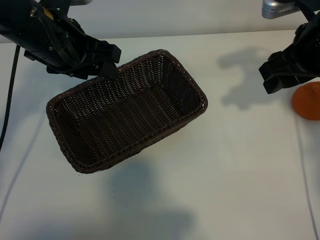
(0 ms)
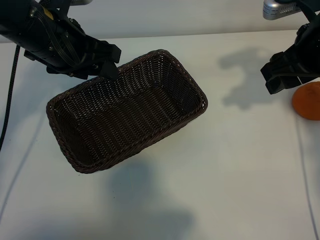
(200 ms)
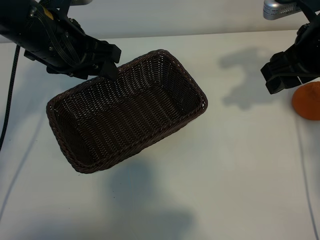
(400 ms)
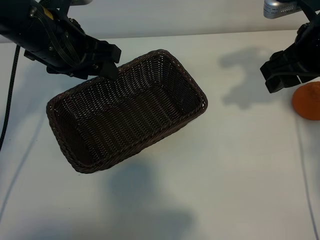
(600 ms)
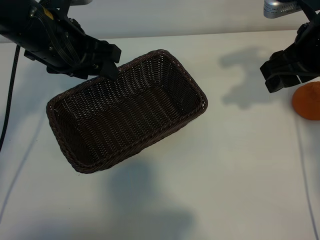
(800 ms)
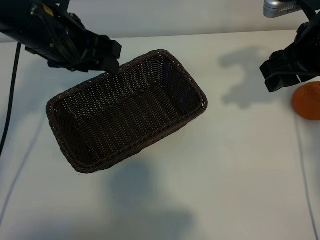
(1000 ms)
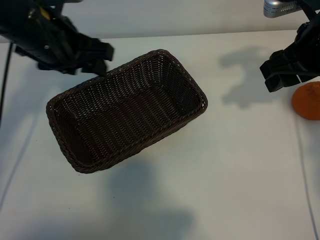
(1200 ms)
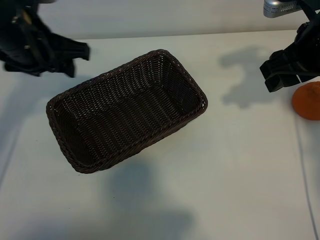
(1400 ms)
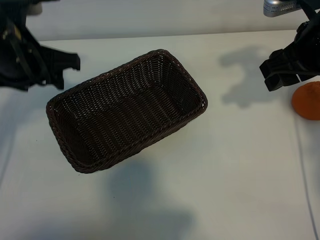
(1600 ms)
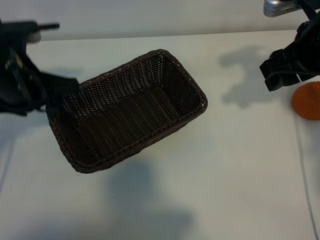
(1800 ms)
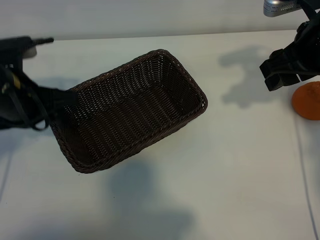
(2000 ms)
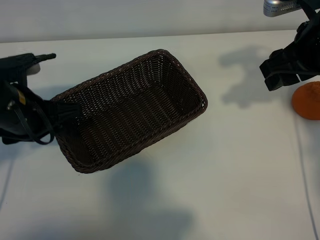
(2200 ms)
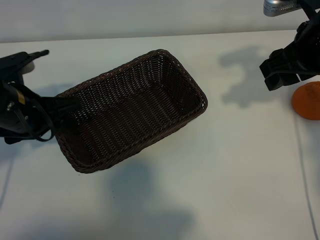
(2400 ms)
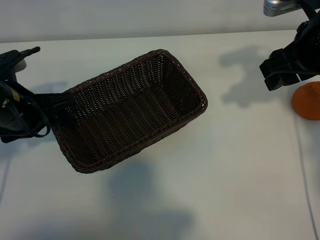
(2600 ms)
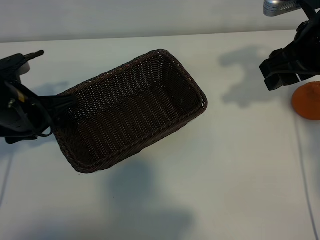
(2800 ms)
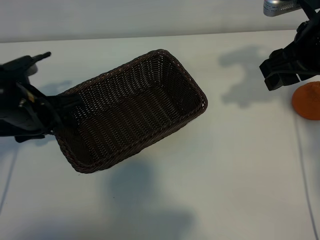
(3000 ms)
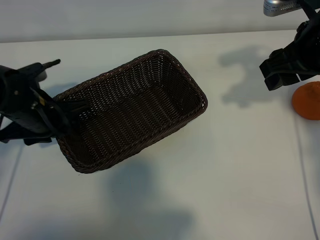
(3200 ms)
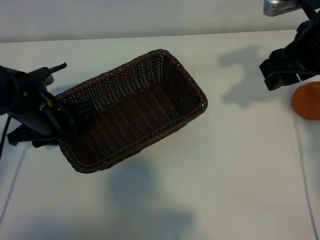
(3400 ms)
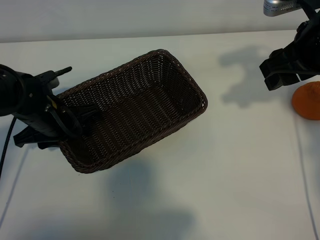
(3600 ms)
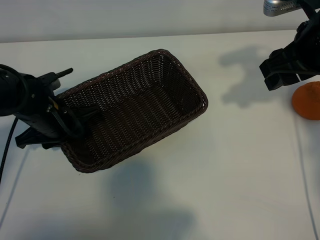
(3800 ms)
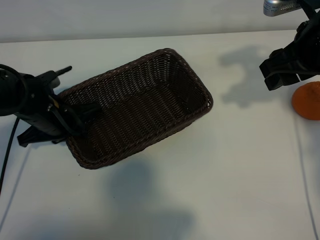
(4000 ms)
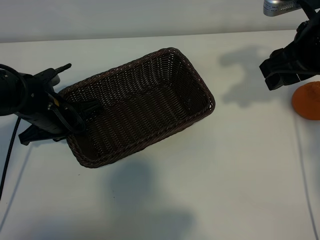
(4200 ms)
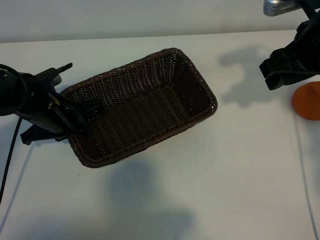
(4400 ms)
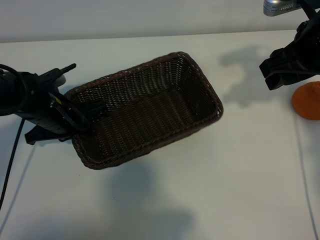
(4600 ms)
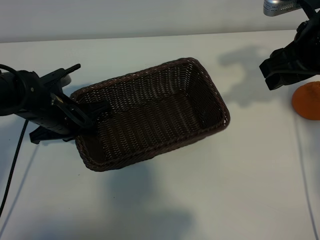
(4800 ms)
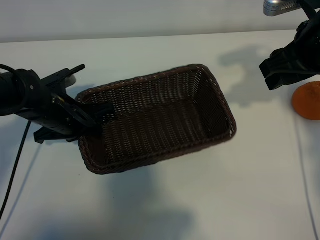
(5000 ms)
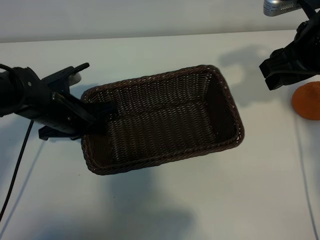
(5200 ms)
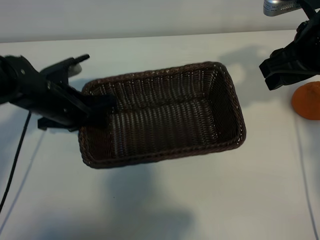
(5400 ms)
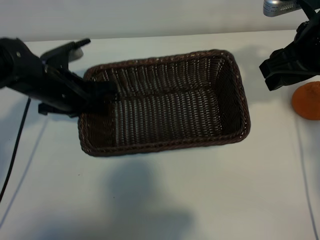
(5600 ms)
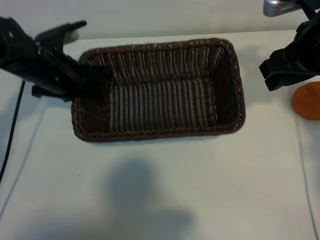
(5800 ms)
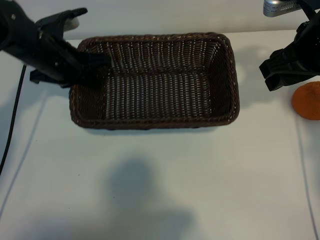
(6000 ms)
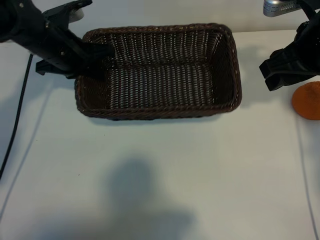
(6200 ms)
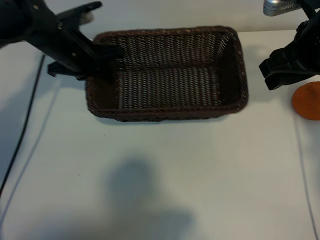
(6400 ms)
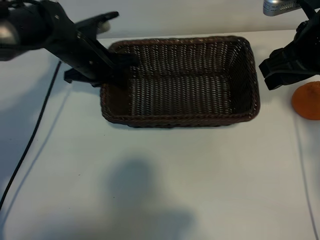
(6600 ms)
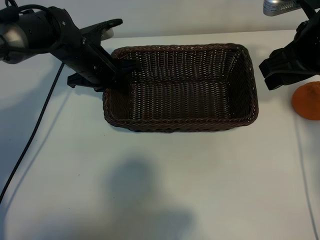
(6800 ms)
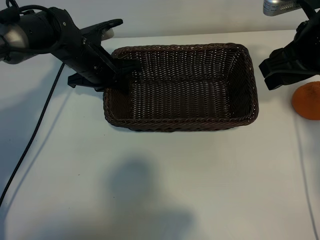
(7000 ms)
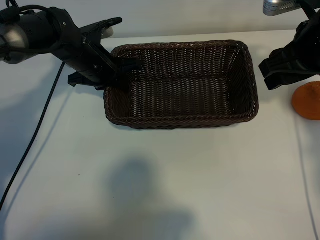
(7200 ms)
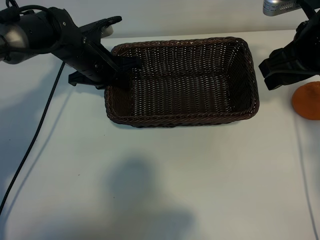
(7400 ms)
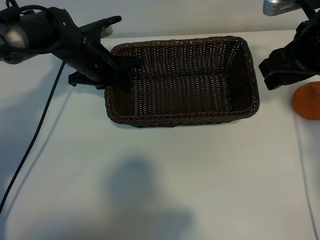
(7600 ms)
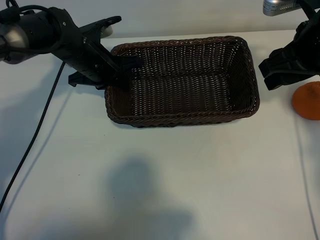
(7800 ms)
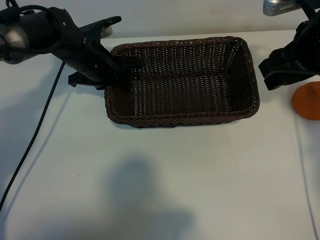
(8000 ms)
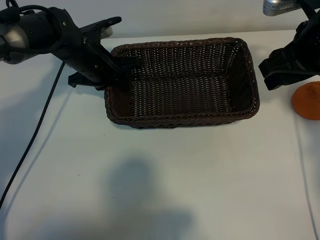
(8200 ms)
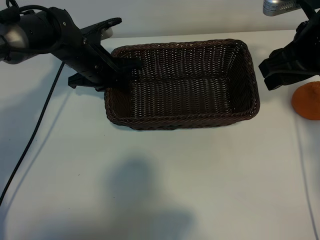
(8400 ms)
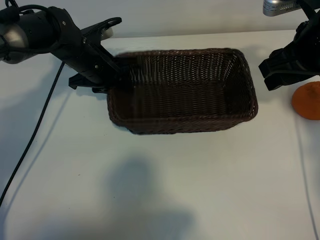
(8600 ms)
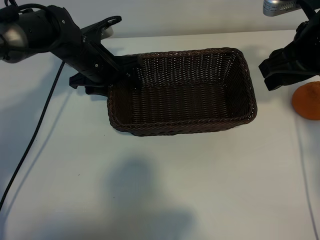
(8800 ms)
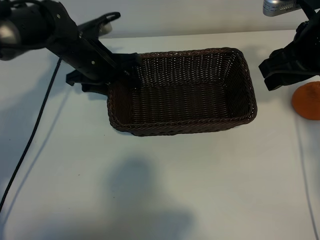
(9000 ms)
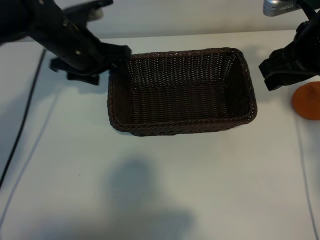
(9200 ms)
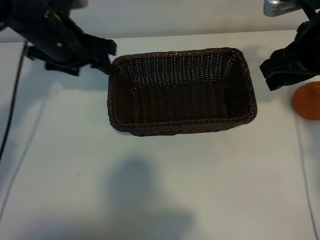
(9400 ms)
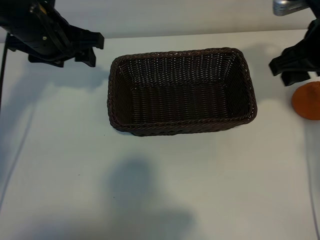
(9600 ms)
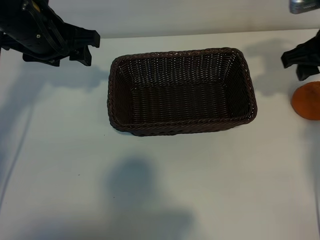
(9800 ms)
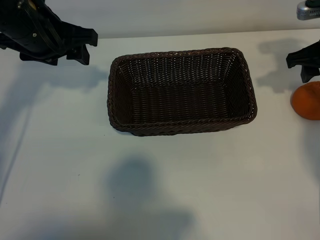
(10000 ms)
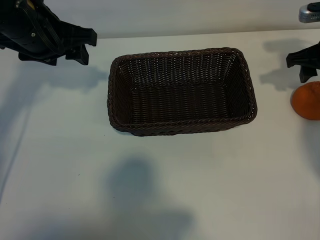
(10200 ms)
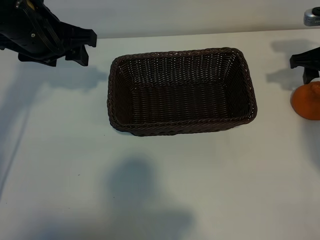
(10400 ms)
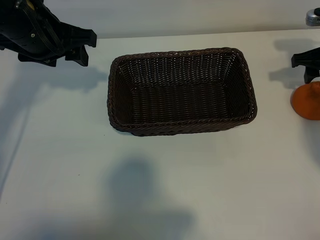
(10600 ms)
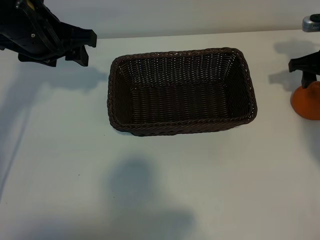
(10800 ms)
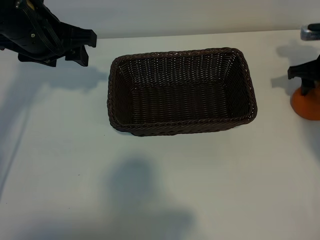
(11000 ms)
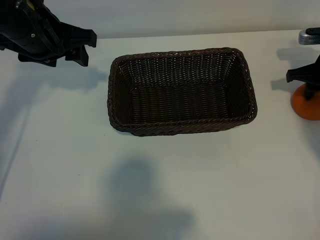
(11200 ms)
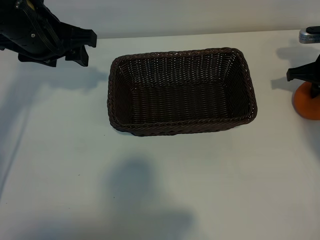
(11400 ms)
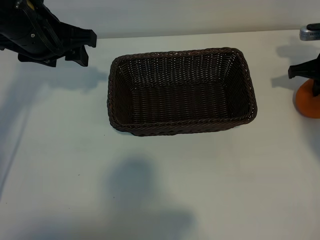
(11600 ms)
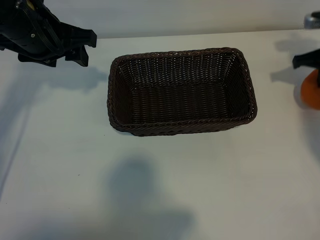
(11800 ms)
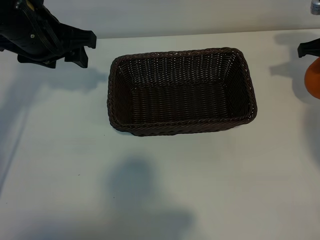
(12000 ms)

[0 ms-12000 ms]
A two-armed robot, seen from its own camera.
Task of the whole recording: pick up the orange and put it into the basket.
Step, 0 ms to 4000 ms: Grasp the basket with left gripper.
Step, 4200 ms to 8600 ms: Place the basket in the center of view with left gripper.
Step, 8800 ms to 11400 ms: Grasp the orange with right gripper.

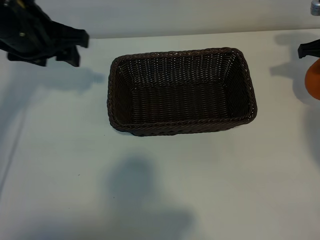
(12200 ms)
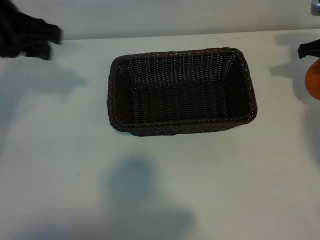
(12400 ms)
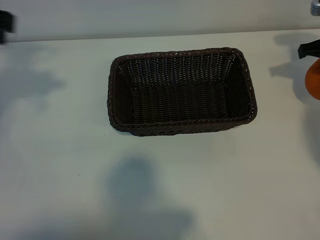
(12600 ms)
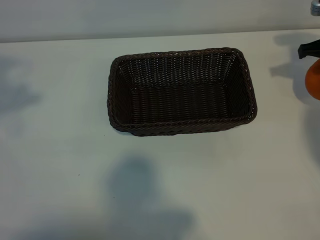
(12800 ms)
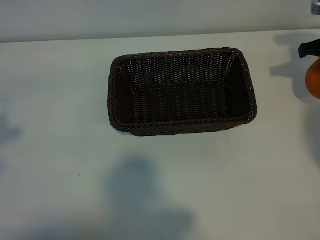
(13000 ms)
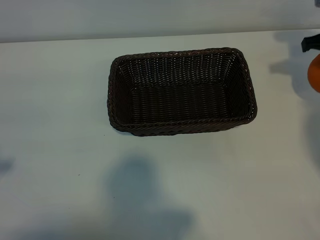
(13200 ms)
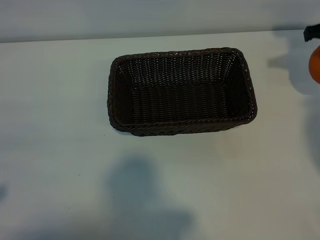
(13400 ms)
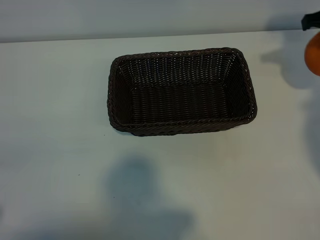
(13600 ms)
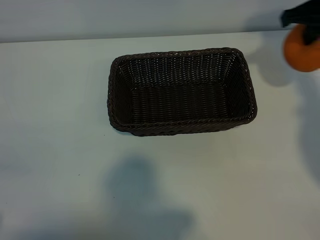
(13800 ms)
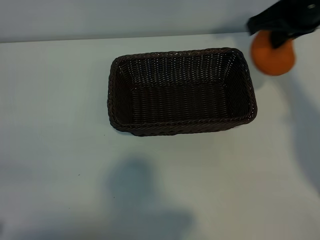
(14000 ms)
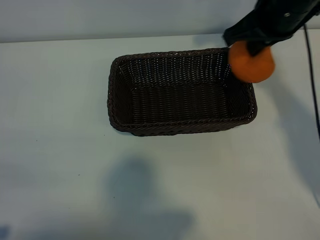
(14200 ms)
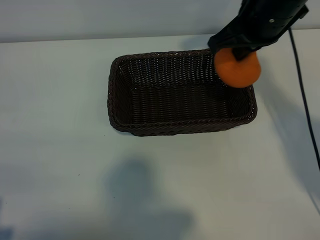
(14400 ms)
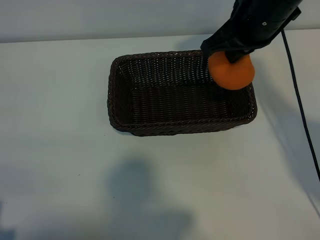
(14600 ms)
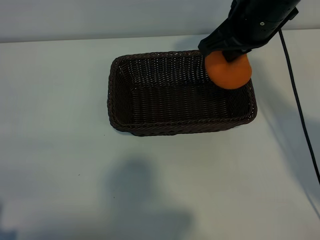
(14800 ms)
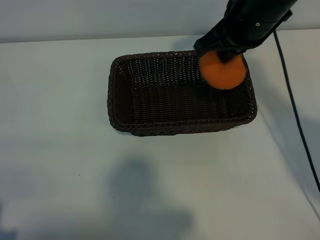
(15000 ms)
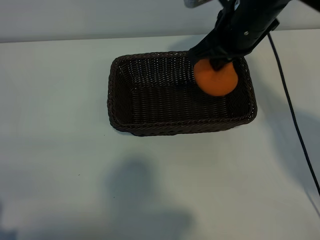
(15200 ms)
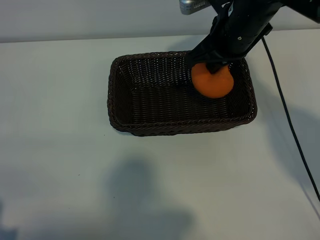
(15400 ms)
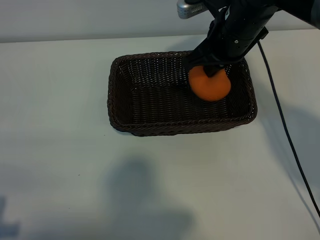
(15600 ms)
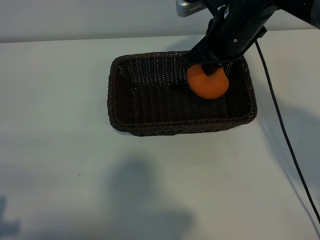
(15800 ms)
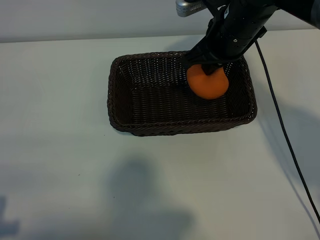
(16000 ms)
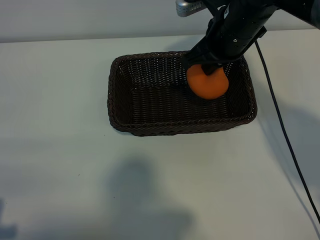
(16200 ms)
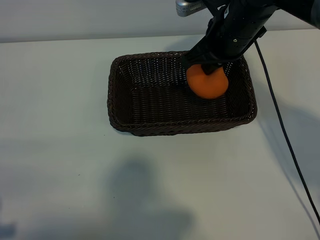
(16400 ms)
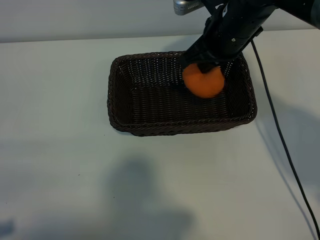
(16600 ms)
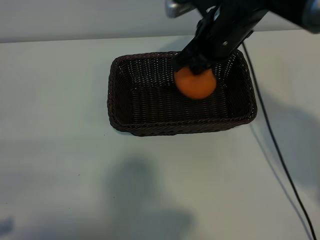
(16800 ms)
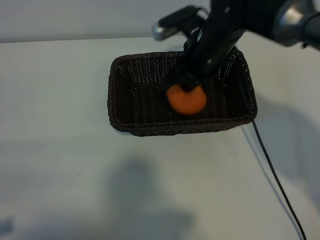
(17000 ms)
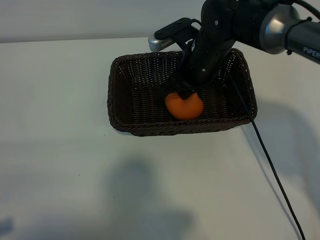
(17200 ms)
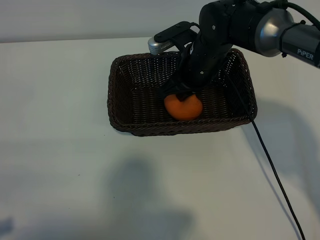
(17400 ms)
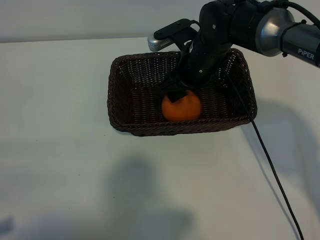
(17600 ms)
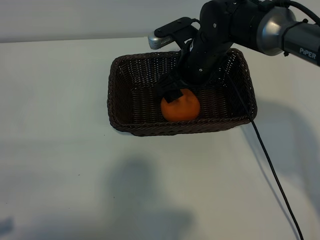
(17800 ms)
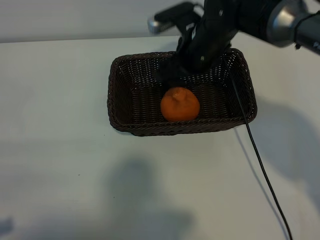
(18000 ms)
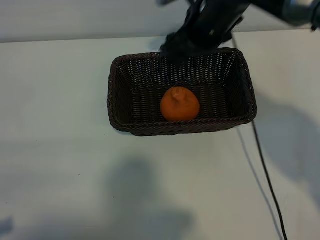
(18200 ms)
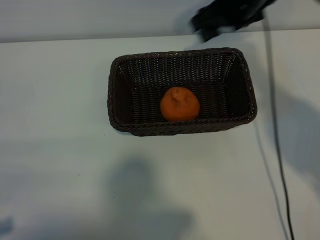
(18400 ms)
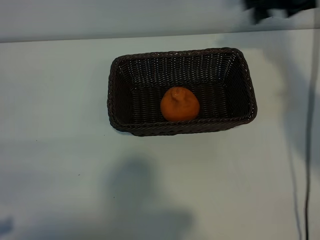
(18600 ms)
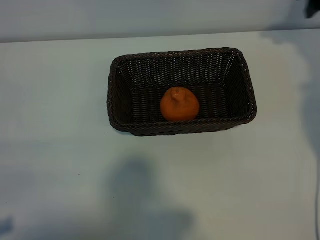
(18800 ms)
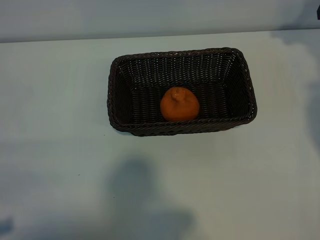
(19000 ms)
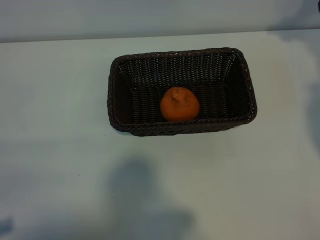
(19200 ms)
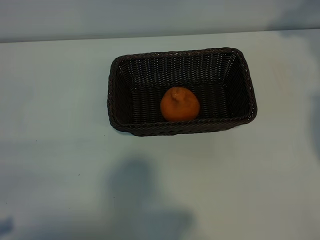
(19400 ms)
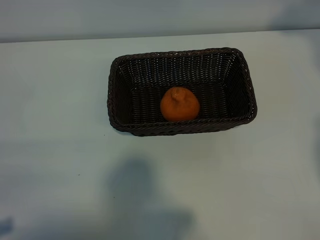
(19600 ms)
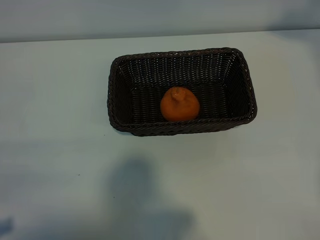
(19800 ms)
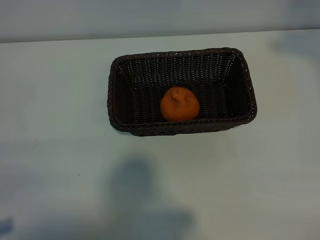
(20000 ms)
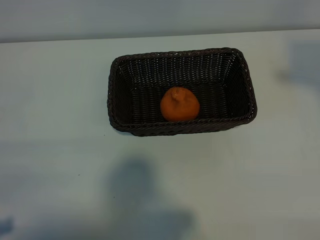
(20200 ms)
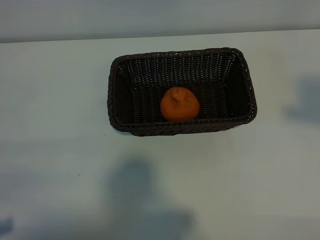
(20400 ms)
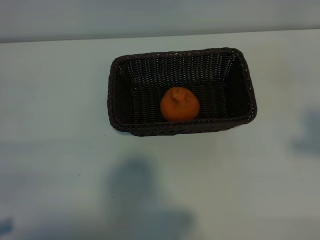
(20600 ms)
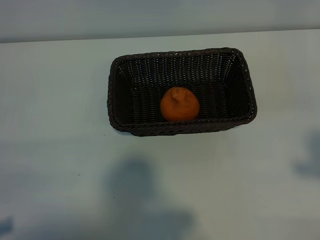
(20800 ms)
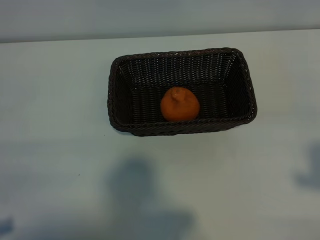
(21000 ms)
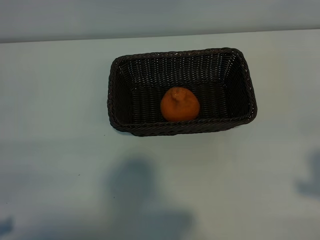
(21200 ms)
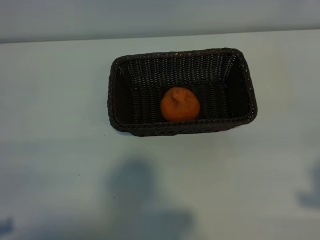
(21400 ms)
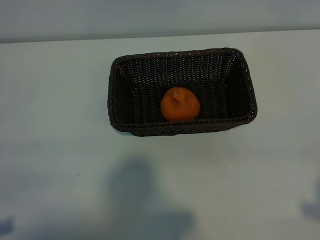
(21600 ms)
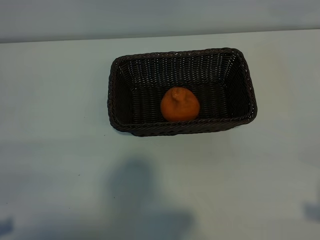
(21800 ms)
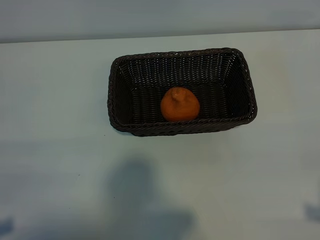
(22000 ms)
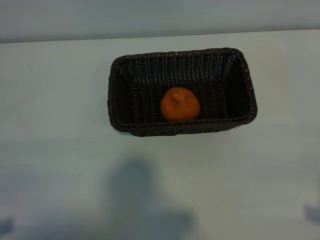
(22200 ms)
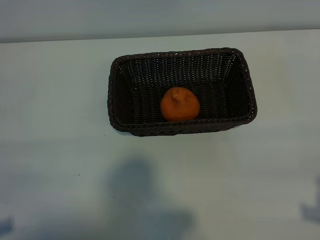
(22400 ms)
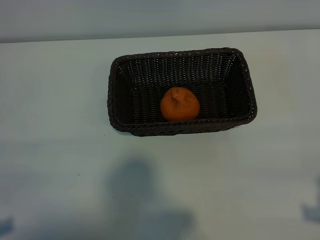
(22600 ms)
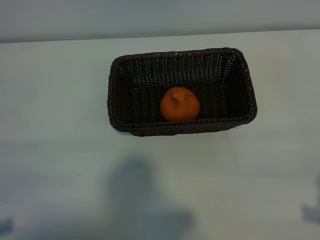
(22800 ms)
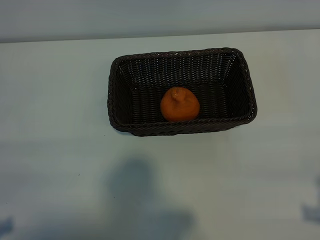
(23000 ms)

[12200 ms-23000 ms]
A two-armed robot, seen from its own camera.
Task of the whole recording: pick up the orange and put it into the basket.
Step, 12200 ms to 17600 ms: Place the orange in the basket with right gripper.
